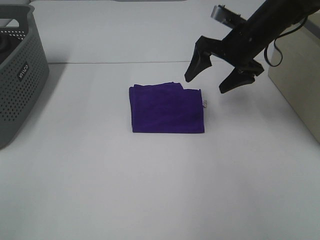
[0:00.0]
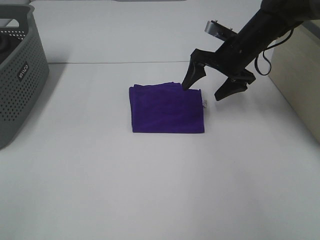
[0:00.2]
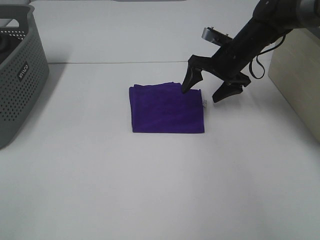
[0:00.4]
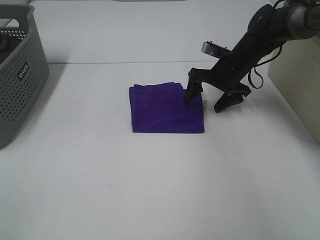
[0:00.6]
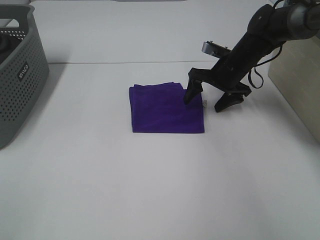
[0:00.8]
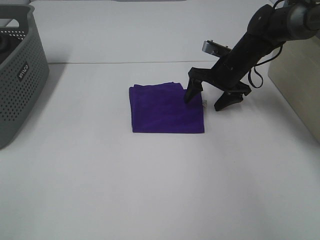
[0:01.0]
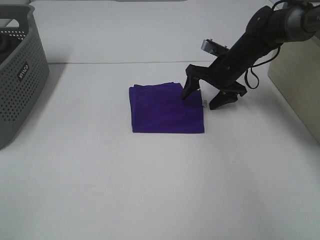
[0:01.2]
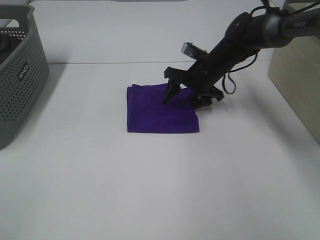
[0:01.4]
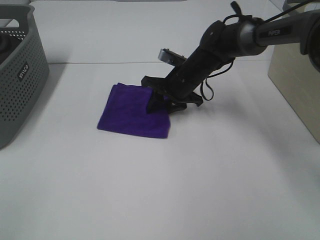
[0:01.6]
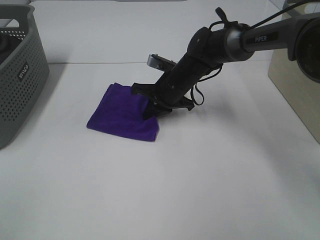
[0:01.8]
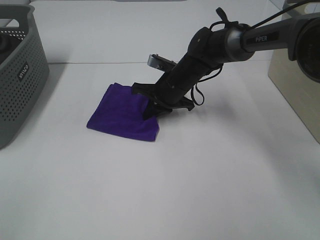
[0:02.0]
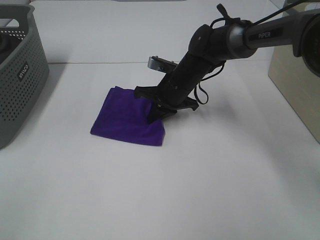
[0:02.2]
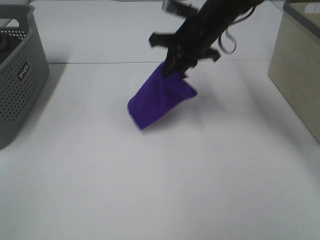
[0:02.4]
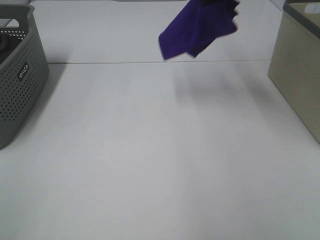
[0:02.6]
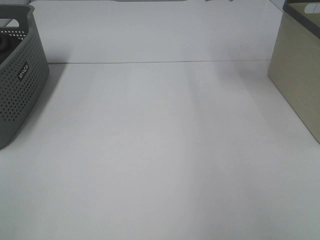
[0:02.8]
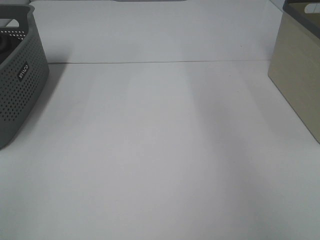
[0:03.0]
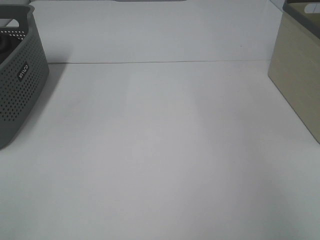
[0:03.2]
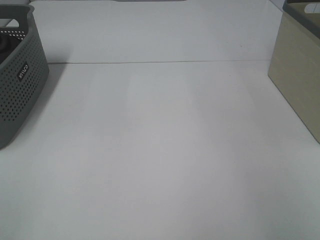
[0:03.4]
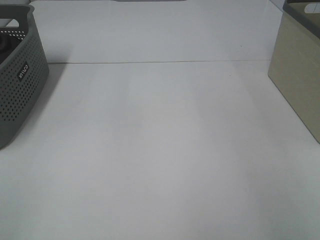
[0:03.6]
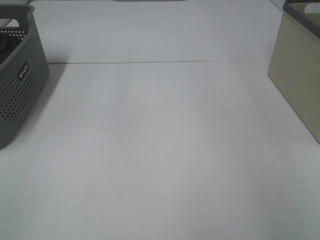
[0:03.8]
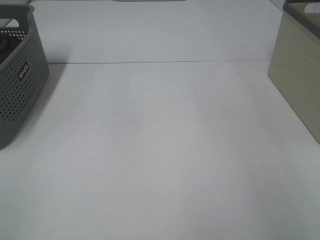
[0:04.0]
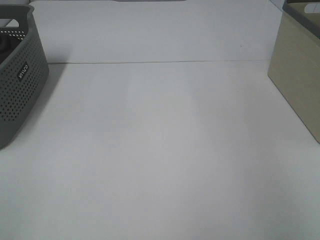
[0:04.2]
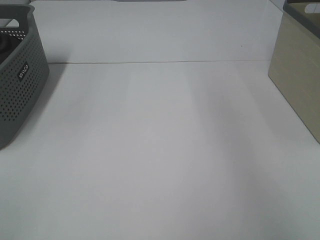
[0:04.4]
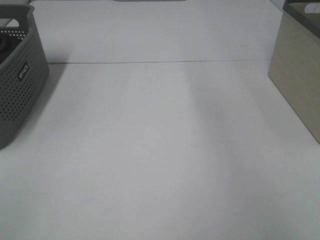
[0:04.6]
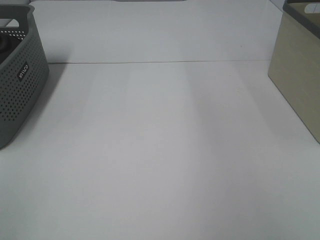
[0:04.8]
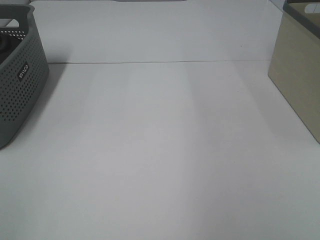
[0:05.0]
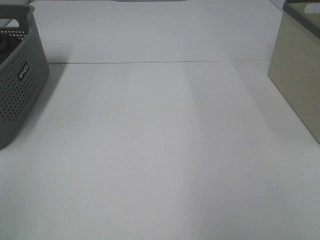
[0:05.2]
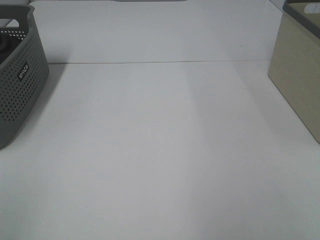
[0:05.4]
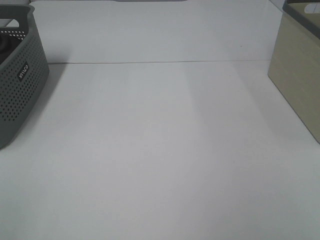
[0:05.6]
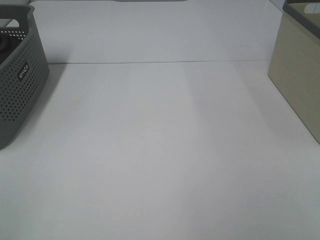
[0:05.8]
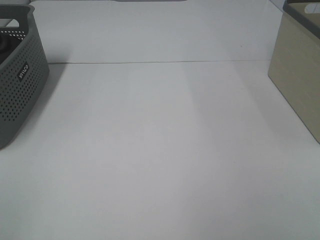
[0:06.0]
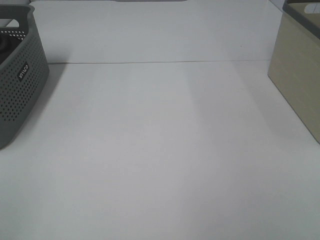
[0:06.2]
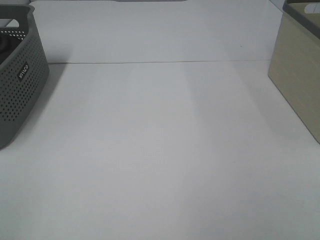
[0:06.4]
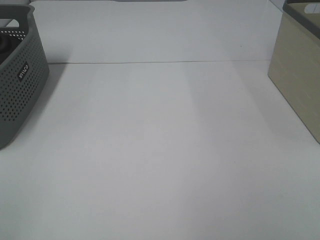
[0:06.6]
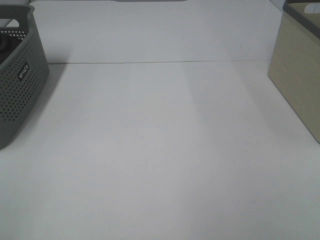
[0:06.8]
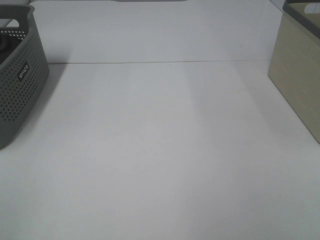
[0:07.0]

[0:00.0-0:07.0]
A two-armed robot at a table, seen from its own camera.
Step, 0:02.0 to 0:03.8: Right hand: place the purple towel in right basket.
0:00.0 to 0:01.4: The right gripper shifts roughly 10 cm downward and to the left.
0:01.4 to 0:02.8: The right gripper moves upward and to the right, about 40 cm, and closes its fingers.

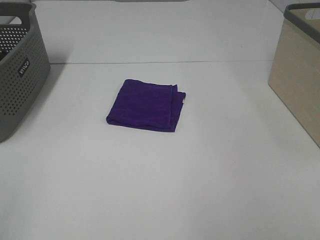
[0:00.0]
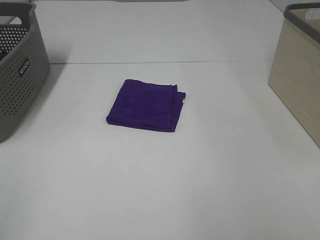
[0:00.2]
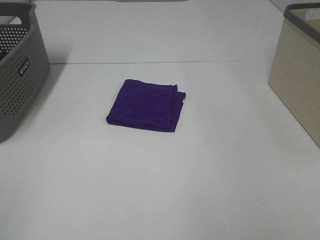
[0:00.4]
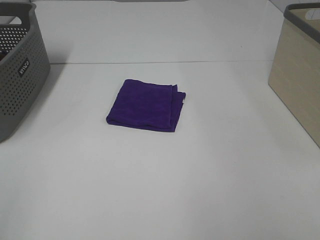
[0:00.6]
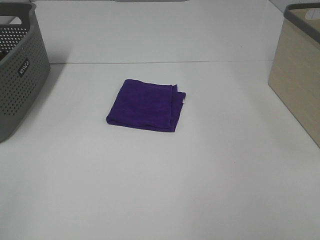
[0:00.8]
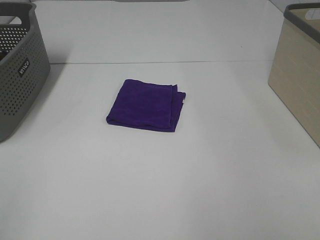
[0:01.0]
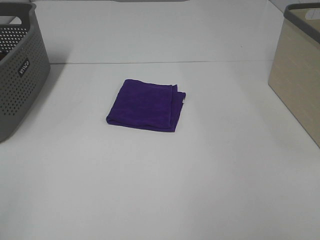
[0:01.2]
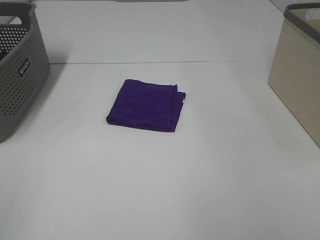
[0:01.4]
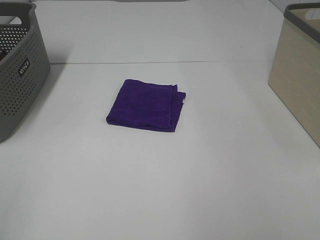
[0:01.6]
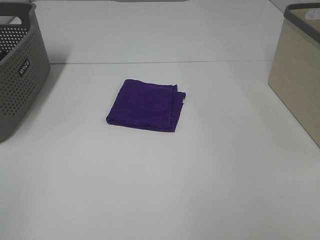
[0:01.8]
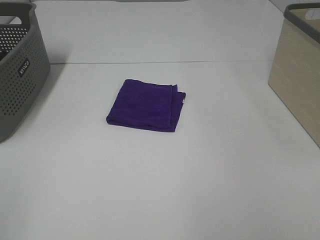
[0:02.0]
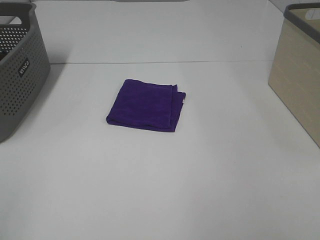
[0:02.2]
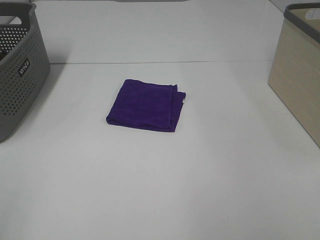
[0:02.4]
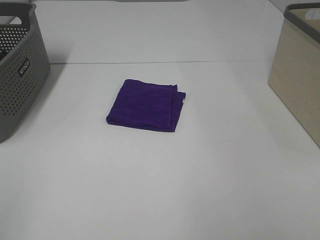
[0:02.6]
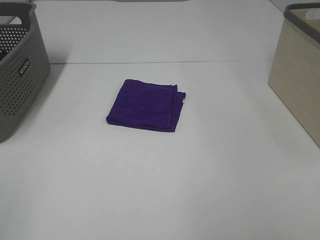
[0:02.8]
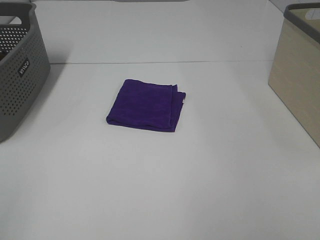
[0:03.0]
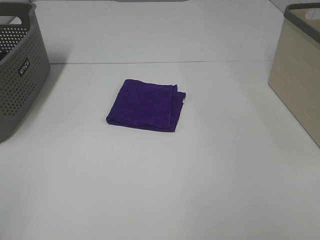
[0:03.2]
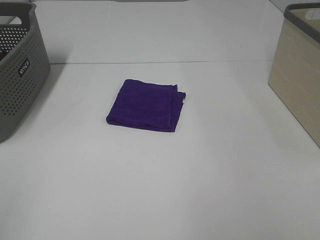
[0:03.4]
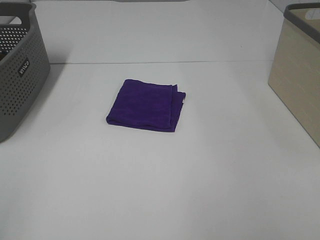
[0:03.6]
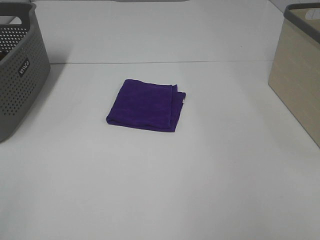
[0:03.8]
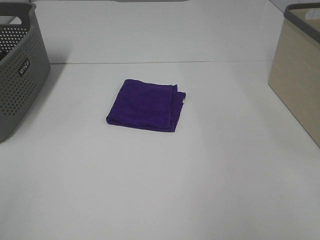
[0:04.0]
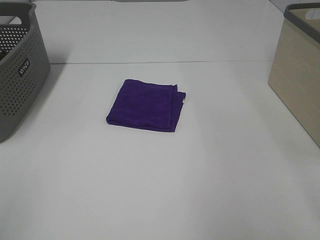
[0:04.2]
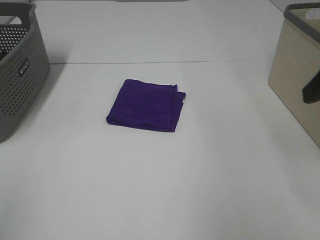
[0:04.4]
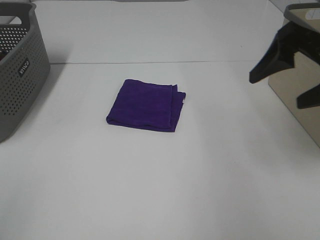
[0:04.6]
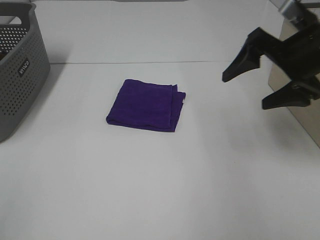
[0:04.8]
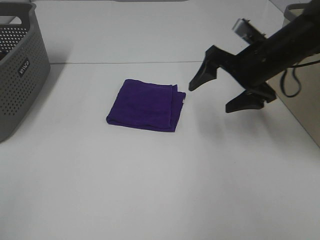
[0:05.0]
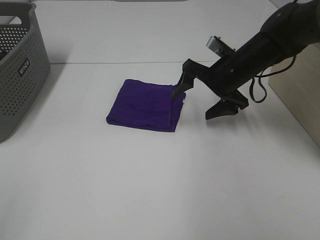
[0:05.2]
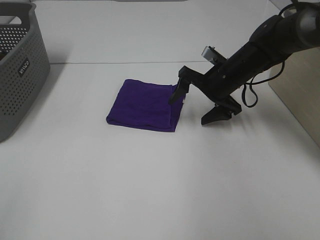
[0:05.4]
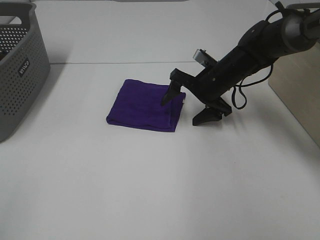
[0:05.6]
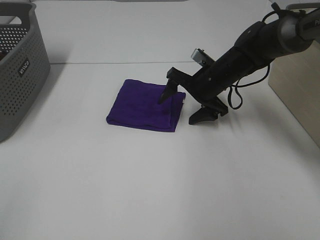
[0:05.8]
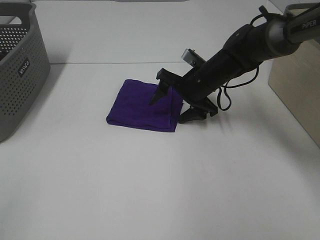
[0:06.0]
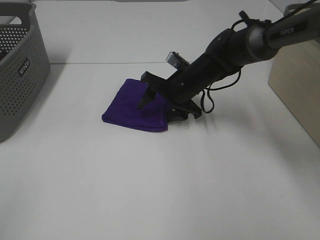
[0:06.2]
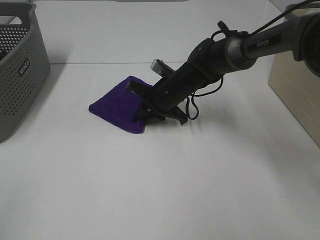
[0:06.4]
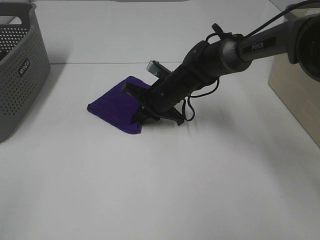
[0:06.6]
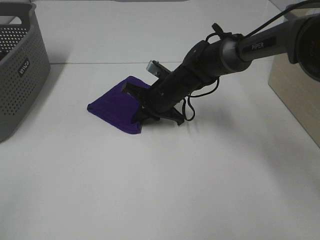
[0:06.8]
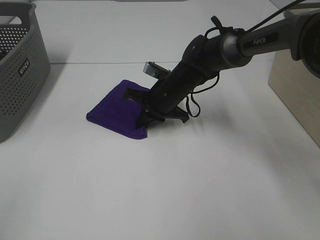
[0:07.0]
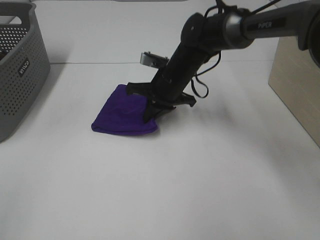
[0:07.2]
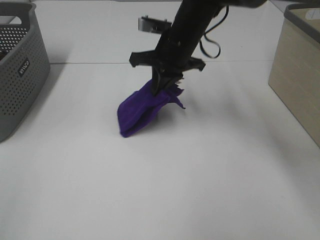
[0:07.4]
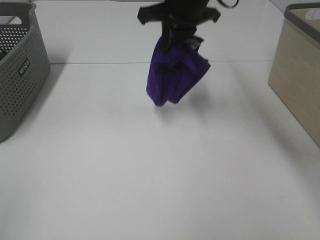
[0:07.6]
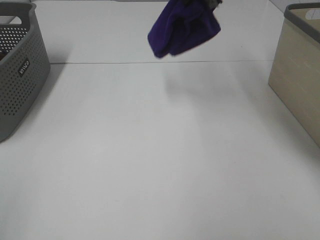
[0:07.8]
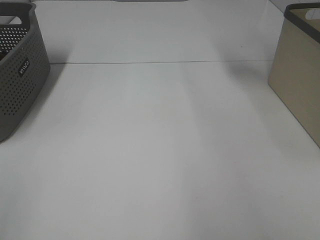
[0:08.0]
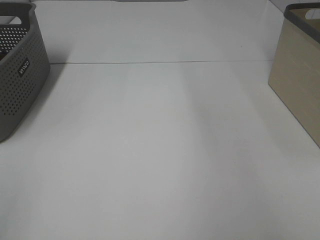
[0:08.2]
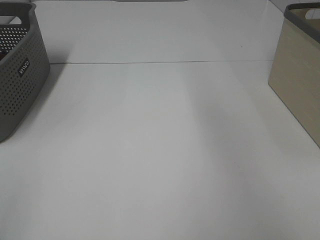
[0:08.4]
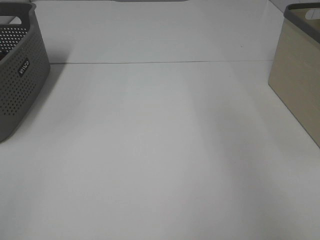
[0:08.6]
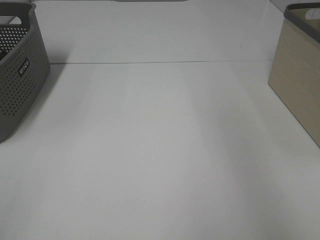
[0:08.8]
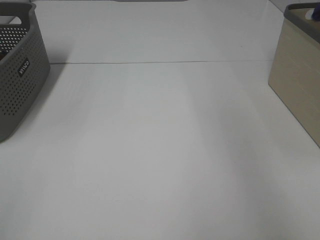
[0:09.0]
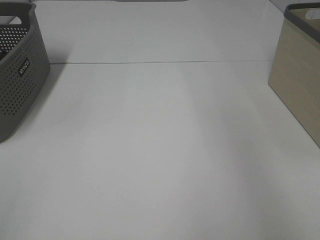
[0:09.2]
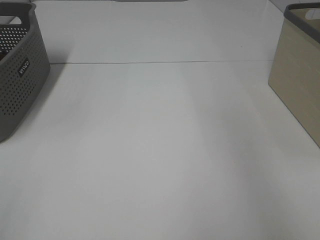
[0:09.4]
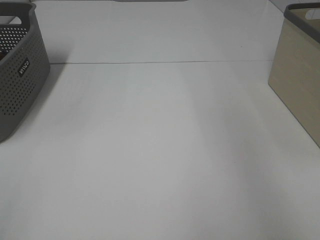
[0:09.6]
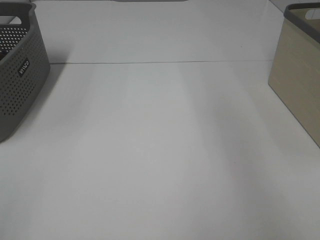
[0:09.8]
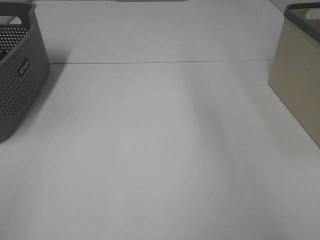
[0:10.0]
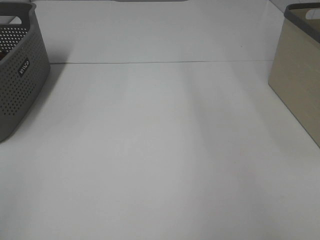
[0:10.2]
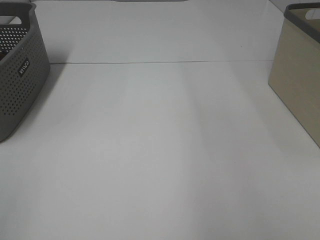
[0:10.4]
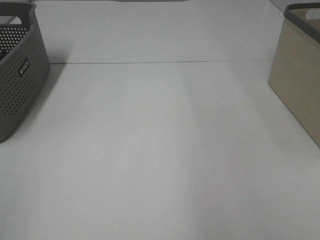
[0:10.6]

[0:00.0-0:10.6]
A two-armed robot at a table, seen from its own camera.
Step, 0:00.0 to 0:06.6: Right hand: grab the folded purple towel.
Step, 0:06.8 to 0:09.2: Right hand: place the purple towel in right basket.
0:00.0 to 0:03.0: Both grippers stay put.
0:03.0 to 0:04.6: The right gripper goes some 25 cm forward.
0:04.6 to 0:06.0: The right gripper is displaced downward, forward and to the left by about 25 cm.
0:06.0 to 0:07.6: The right gripper goes approximately 20 cm upward, and closes up.
0:07.6 to 0:09.0: The right gripper goes roughly 35 cm to the right, and opens up.

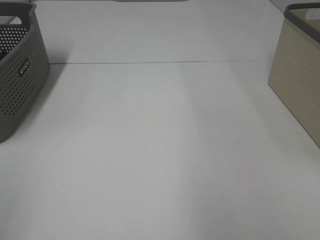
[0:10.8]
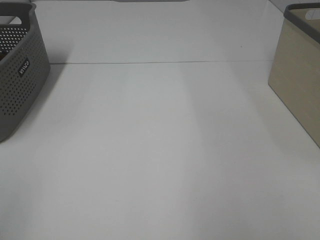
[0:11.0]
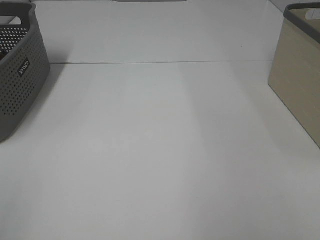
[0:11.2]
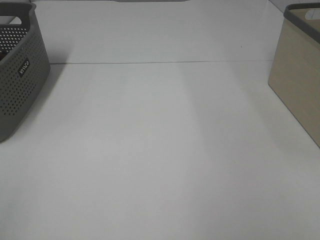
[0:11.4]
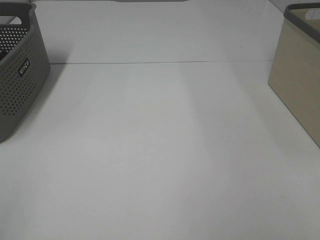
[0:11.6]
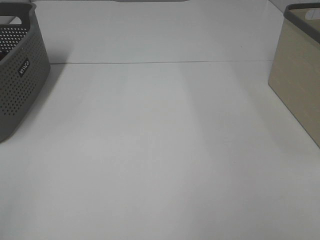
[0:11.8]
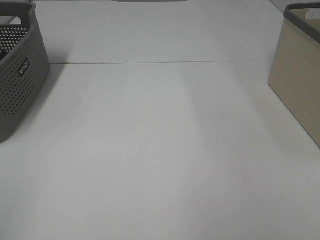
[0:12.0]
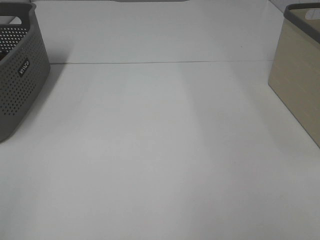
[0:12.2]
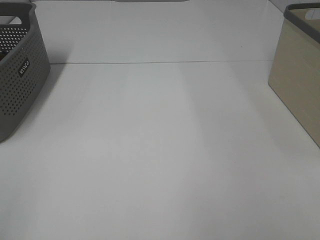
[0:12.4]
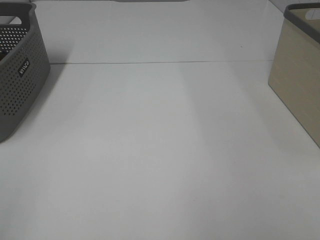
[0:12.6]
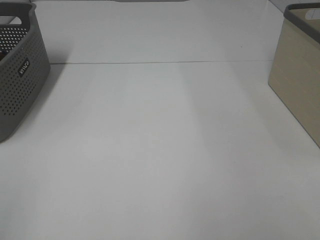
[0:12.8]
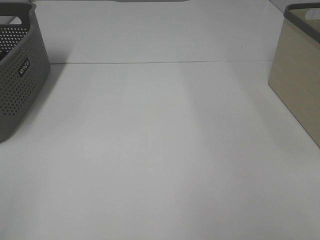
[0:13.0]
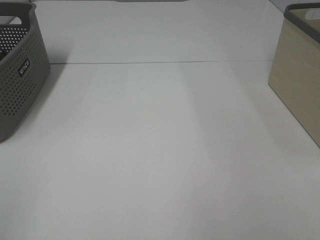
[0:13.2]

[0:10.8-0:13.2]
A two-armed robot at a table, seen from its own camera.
0:12.0 to 0:13.2: Both grippers stay about where they are.
